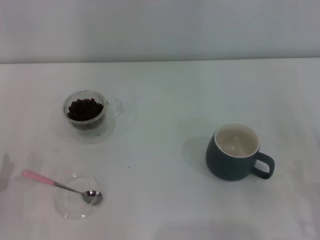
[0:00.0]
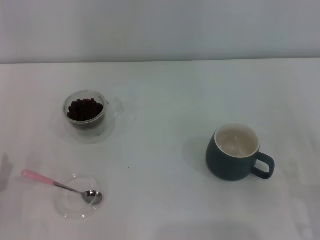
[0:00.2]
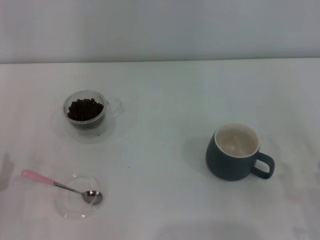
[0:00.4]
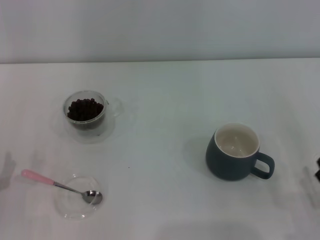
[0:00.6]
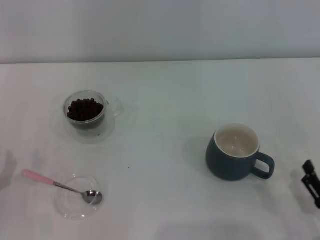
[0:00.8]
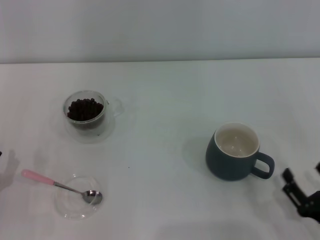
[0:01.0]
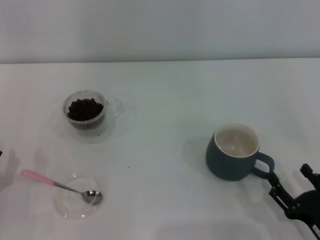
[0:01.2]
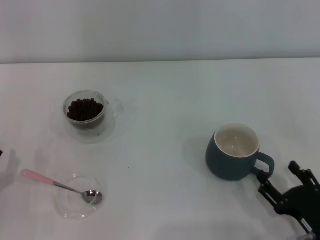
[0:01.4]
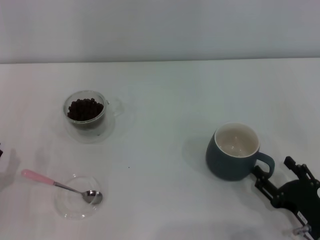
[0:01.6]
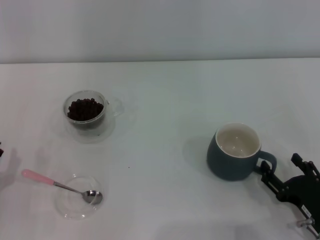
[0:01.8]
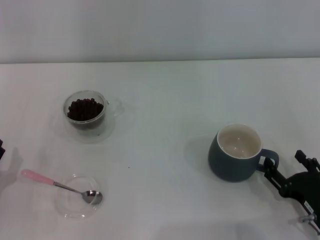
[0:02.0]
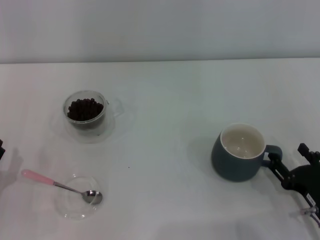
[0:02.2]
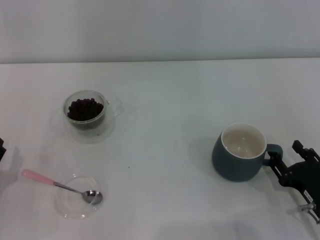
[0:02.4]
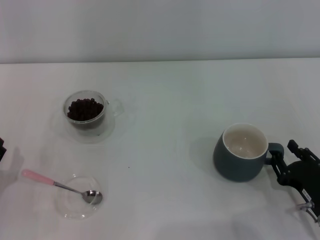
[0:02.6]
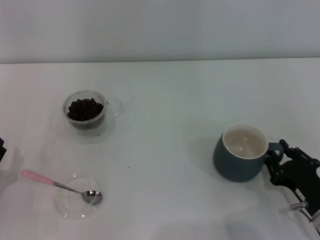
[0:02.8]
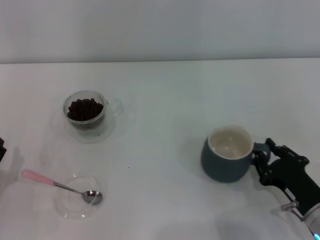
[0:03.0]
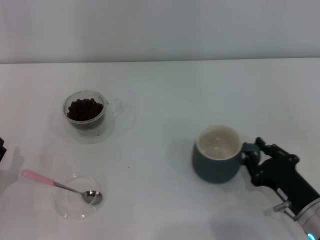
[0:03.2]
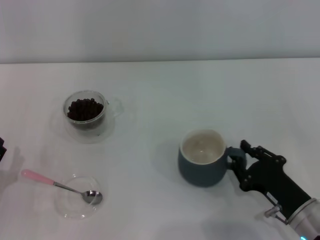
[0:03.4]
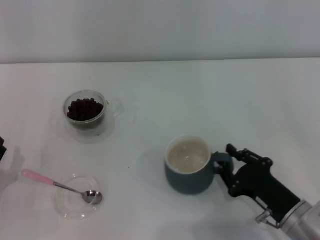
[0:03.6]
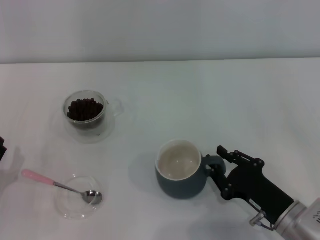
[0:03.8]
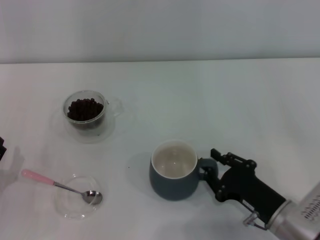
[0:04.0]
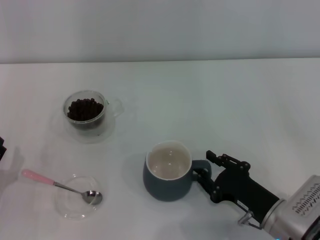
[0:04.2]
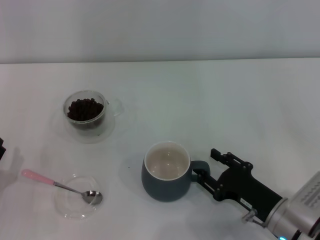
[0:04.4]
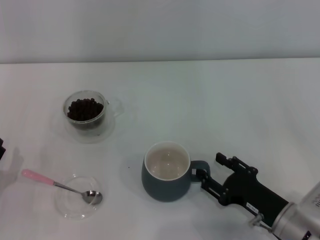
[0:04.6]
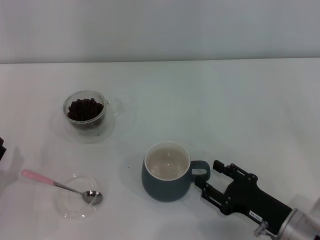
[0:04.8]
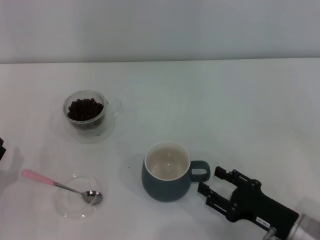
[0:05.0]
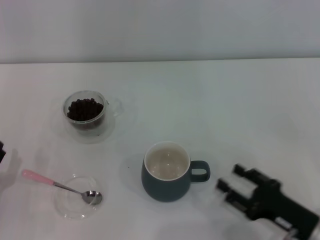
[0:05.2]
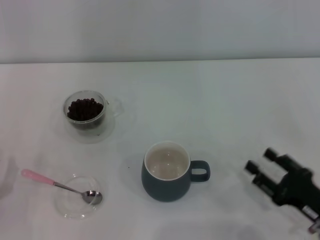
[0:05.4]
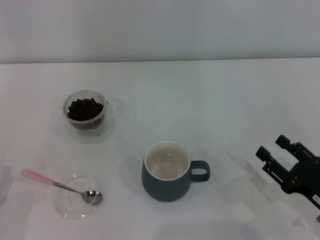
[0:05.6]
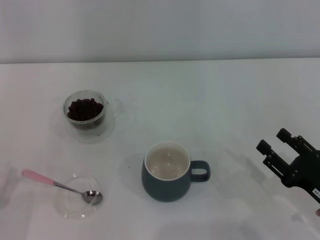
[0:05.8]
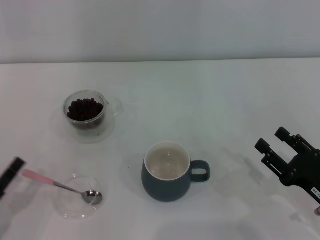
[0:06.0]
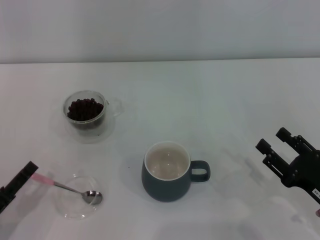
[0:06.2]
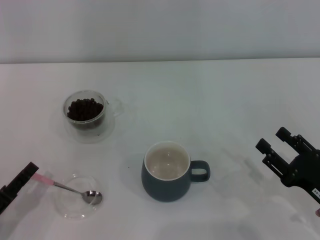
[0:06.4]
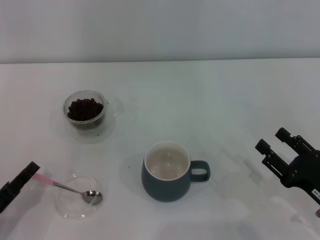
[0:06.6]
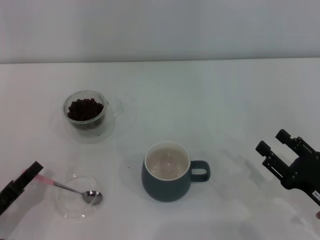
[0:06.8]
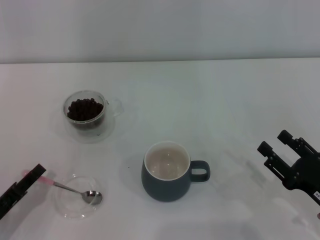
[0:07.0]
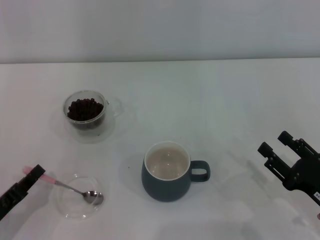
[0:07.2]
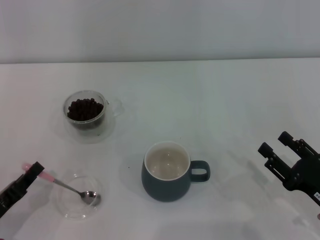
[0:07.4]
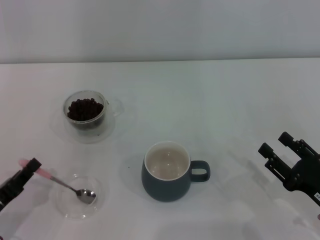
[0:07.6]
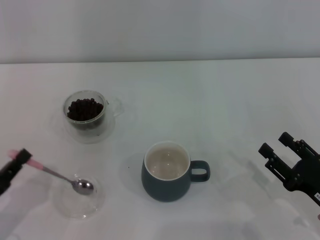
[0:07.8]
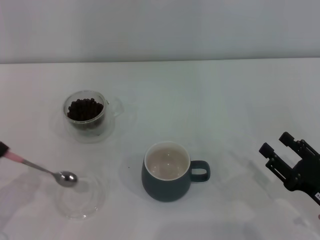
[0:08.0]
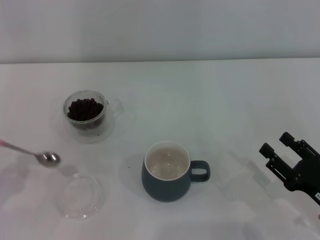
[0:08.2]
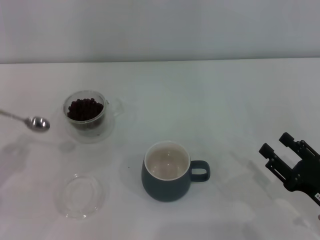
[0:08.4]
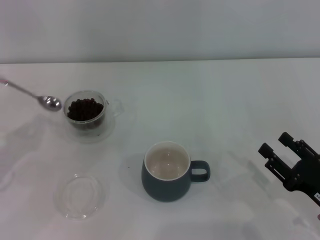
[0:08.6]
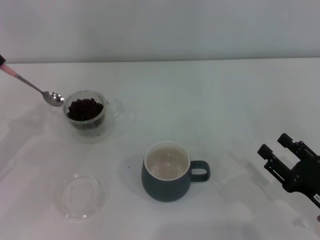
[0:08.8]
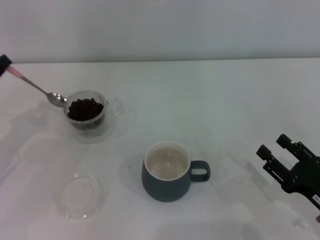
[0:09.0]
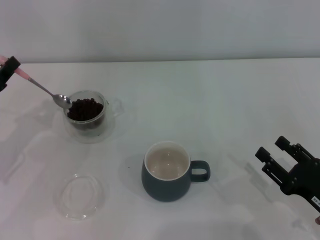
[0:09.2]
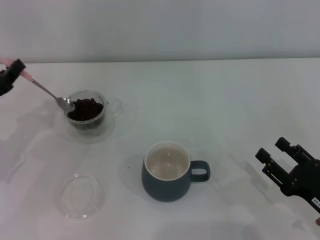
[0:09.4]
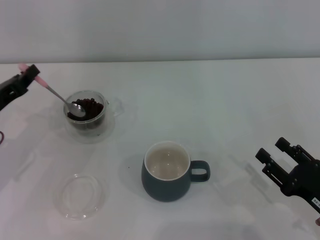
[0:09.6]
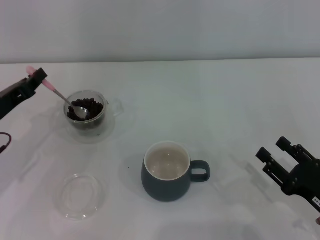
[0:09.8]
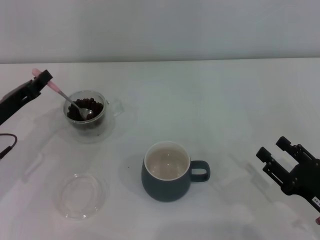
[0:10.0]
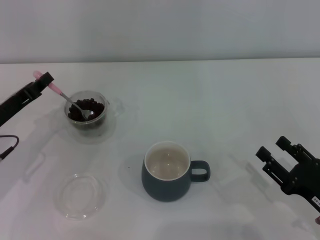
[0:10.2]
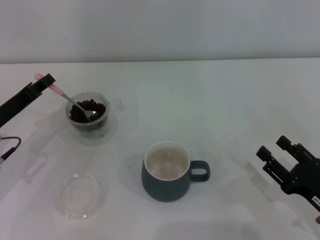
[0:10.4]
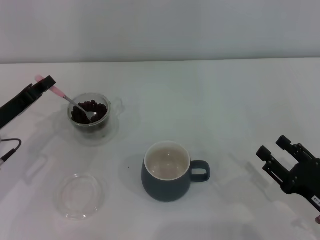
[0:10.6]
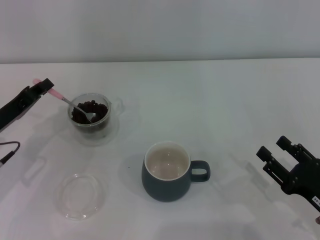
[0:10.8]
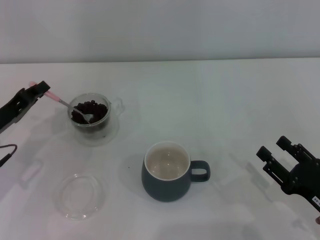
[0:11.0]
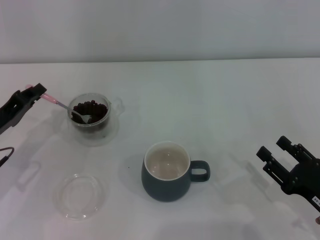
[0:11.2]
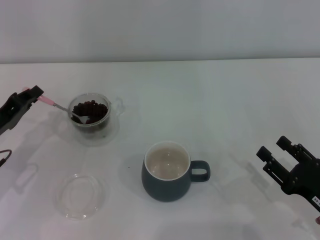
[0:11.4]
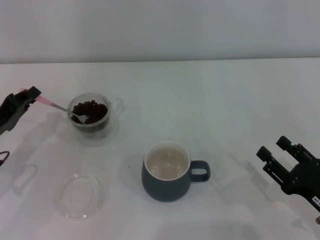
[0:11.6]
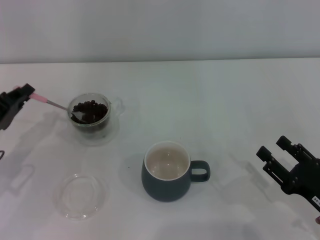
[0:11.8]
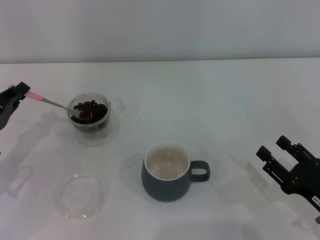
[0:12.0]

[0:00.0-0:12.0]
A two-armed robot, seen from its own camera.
Task of the whole recording: Use a pink spoon to take out the coffee beans from the glass and pour them into the gray cup.
Step, 0:05.4 to 0:08.0: Pick up the spoon with the right gripper.
0:00.0 to 0:01.6: The right gripper goes approximately 5 cm to the left.
0:01.6 to 0:03.0: The right gripper closes up.
0:03.0 to 0:04.4: There are only small adjustments of the grippers.
0:04.4 to 0:06.0: The right gripper goes some 10 cm to the right, and opens its fingers.
0:06.0 to 0:07.6: The left gripper closes.
0:07.6 to 0:09.0: The left gripper travels forward and upward by roughly 15 cm.
0:09.0 to 0:10.4: The left gripper ends up about 5 cm from where it was.
0:10.4 to 0:12.0: The grippers make only small movements.

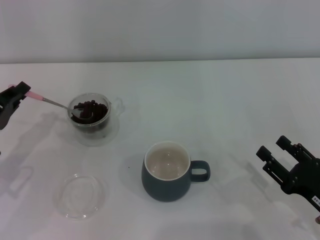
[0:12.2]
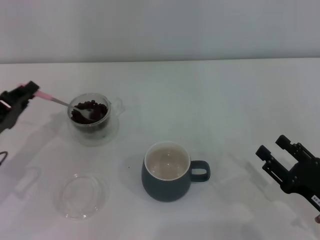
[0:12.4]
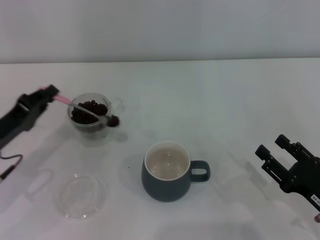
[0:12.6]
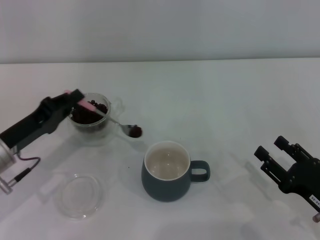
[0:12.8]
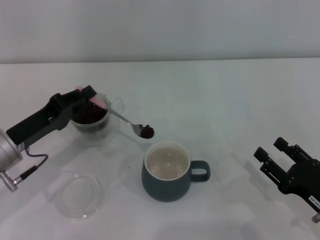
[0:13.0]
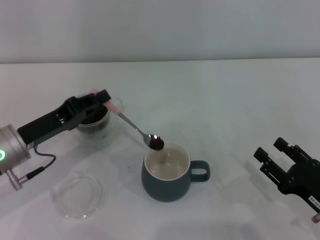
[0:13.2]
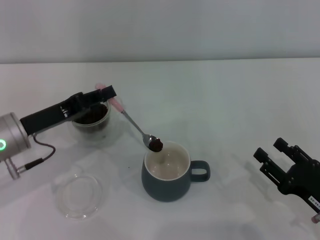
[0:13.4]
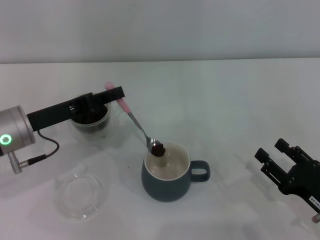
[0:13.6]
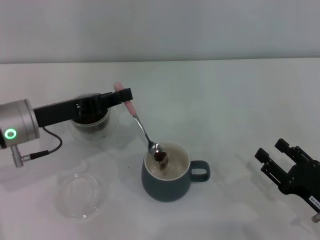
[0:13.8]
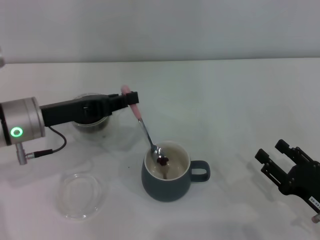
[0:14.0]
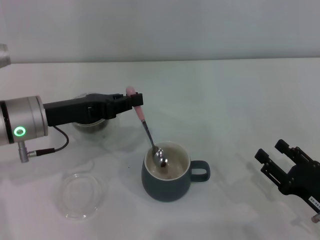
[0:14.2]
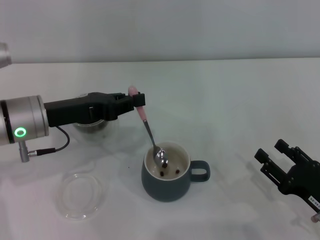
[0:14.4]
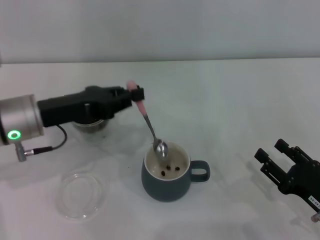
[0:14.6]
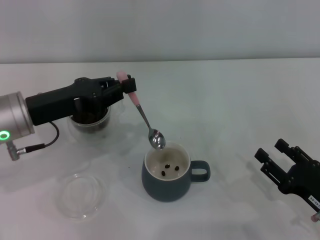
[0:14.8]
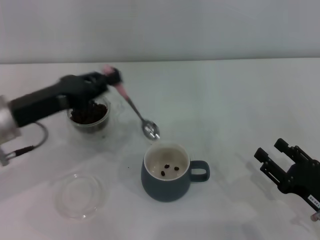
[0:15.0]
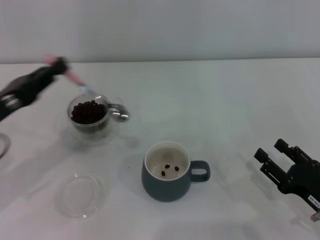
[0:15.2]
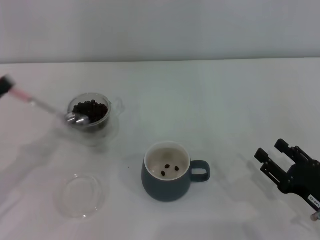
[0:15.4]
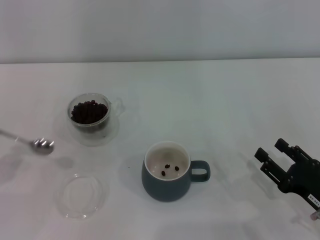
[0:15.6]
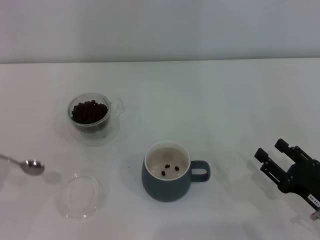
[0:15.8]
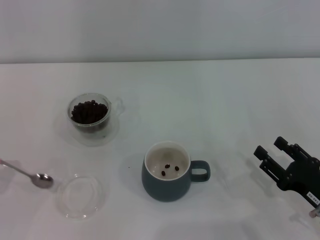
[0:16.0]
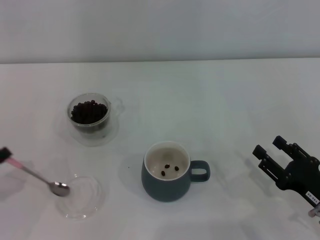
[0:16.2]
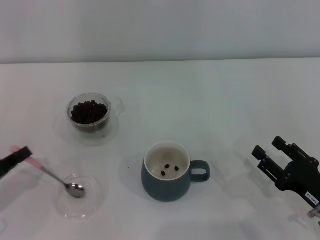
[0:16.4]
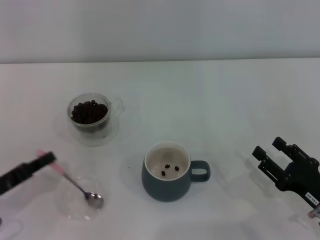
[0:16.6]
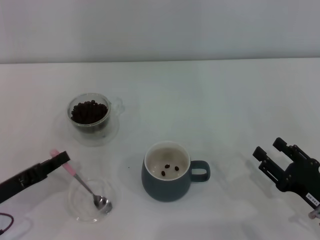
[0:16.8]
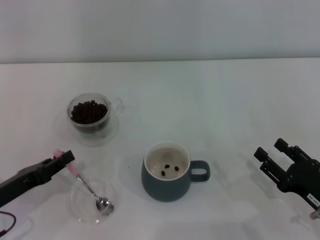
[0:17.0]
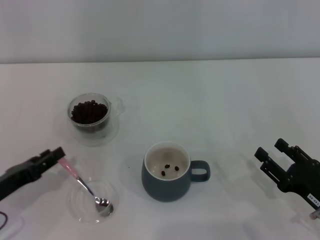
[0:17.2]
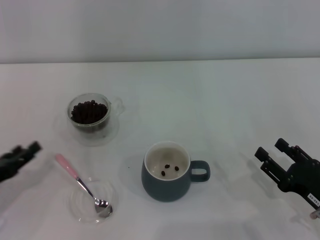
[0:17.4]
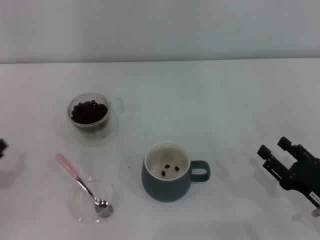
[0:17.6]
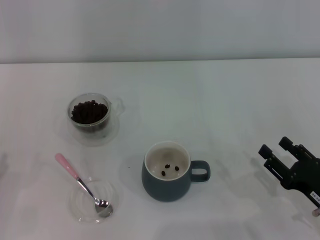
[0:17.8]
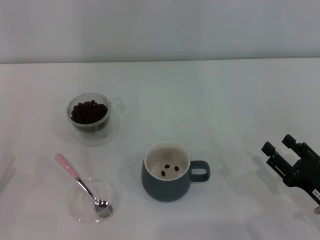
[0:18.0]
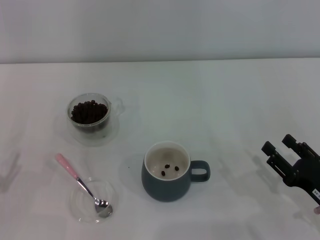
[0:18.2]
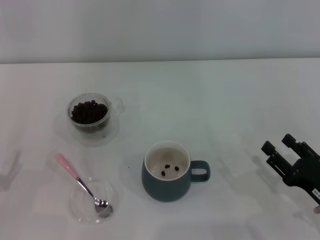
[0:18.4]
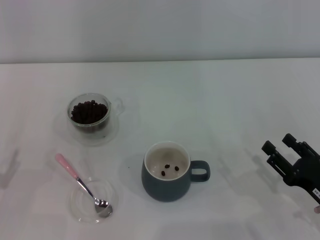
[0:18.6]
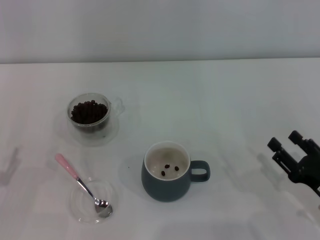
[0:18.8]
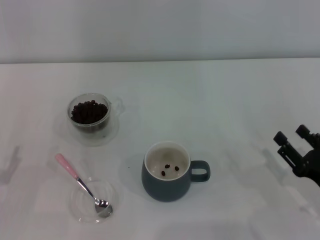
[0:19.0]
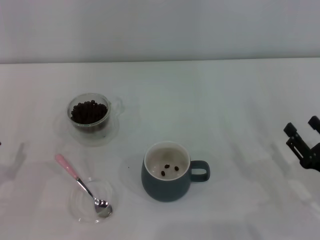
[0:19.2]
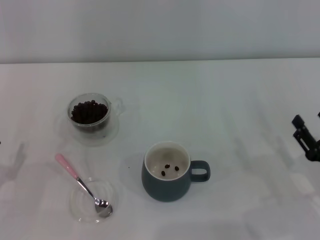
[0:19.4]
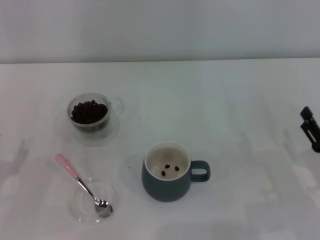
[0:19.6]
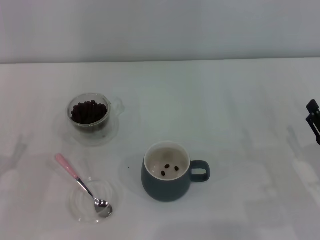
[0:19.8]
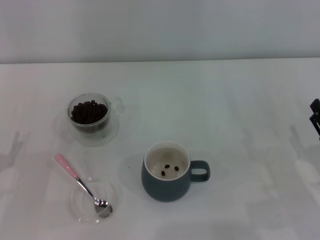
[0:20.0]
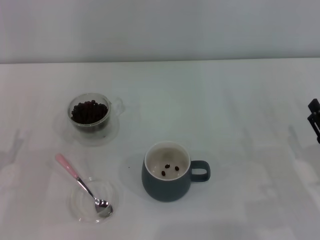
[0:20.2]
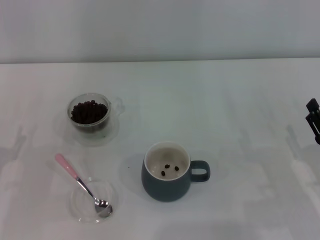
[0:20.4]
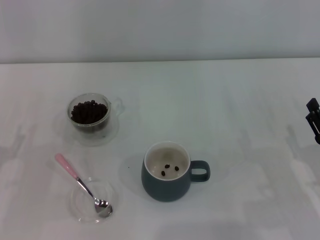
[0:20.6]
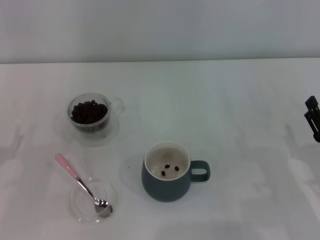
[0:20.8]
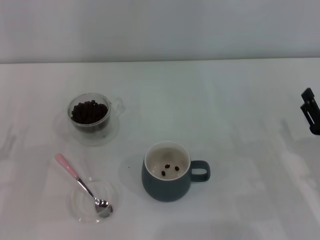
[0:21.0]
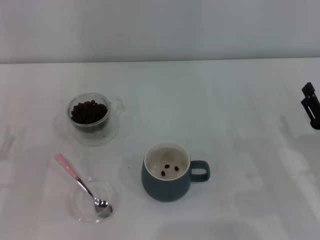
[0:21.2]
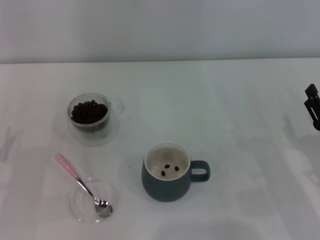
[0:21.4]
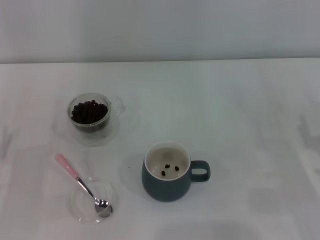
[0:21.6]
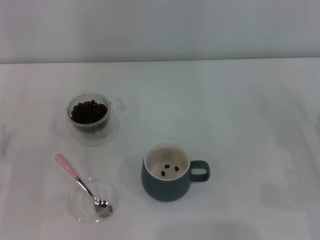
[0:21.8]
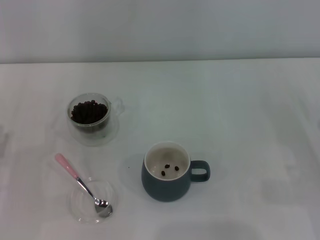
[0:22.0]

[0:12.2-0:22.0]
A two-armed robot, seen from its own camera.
Task of the whole recording: Use a pink spoon to take out the coffee beans from the glass and pour them into the gray cup.
0:12.2 to 0:13.6: The left gripper goes roughly 10 cm to the right.
0:15.0 to 0:16.4: The left gripper shifts roughly 15 cm to the left, downward and backward.
0:16.4 to 0:17.8: The left gripper opens.
0:17.8 to 0:19.2: The grippers make only small movements.
0:19.2 to 0:20.6: The grippers make only small movements.
